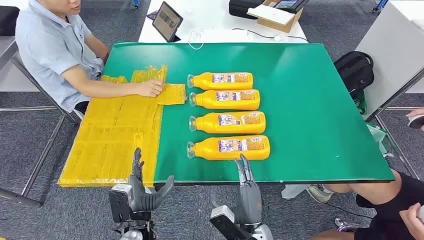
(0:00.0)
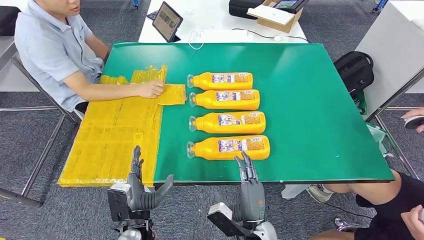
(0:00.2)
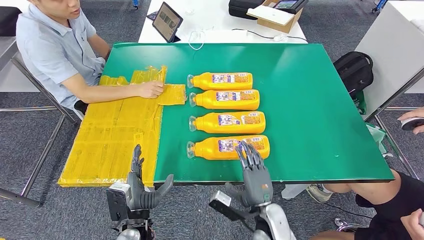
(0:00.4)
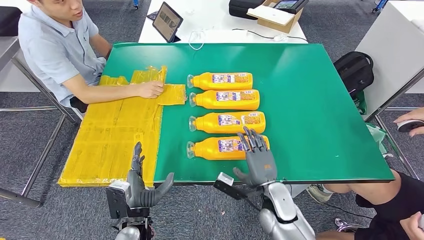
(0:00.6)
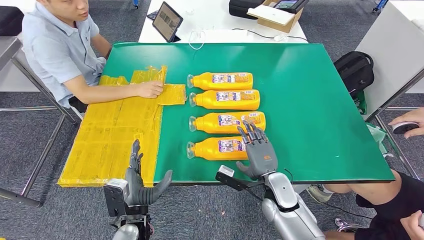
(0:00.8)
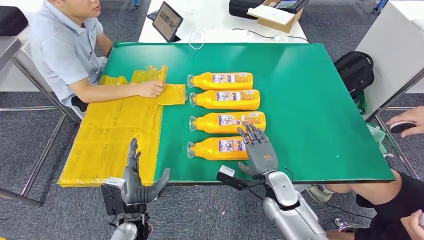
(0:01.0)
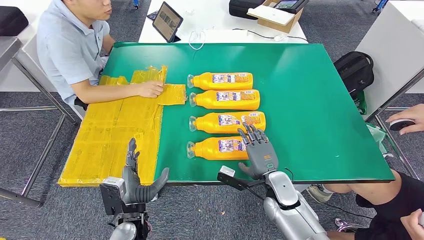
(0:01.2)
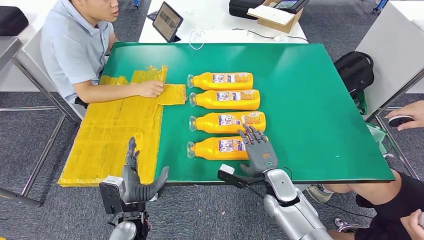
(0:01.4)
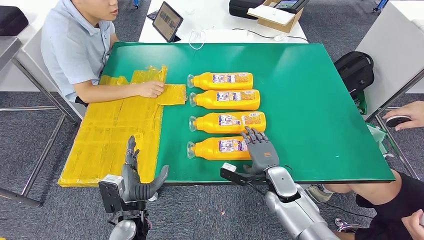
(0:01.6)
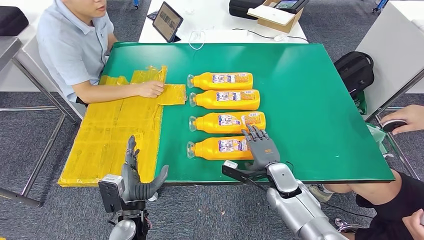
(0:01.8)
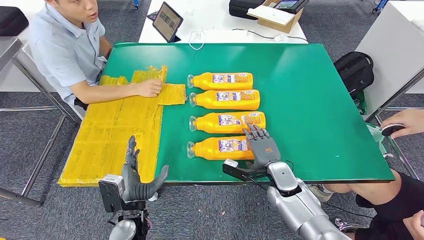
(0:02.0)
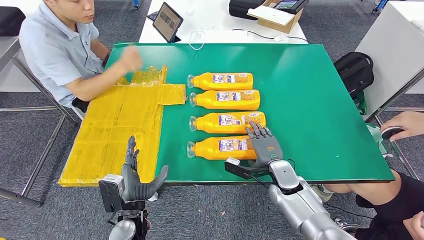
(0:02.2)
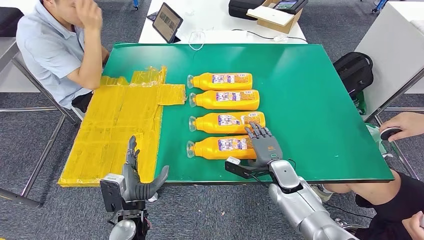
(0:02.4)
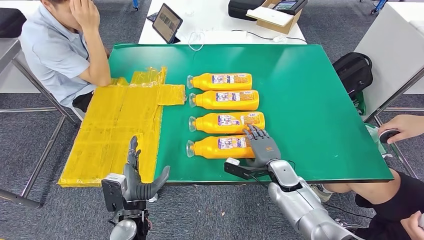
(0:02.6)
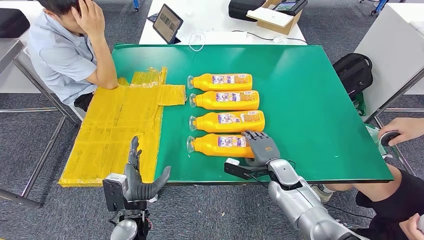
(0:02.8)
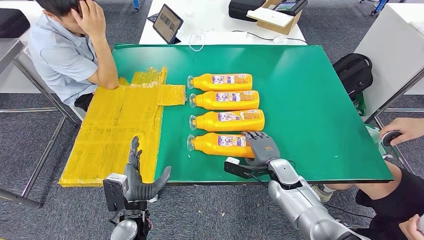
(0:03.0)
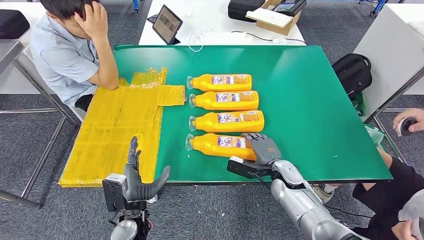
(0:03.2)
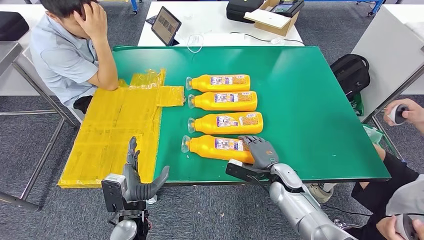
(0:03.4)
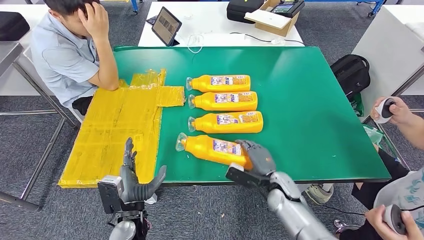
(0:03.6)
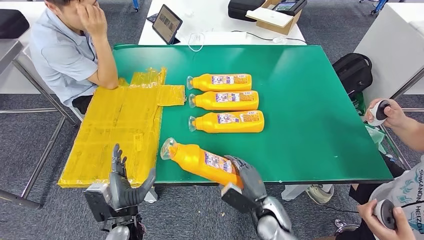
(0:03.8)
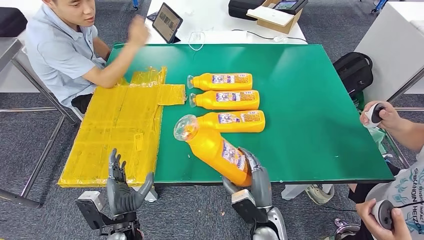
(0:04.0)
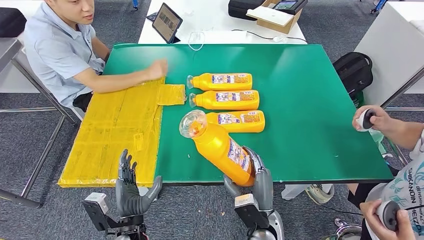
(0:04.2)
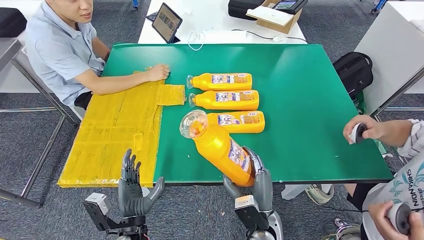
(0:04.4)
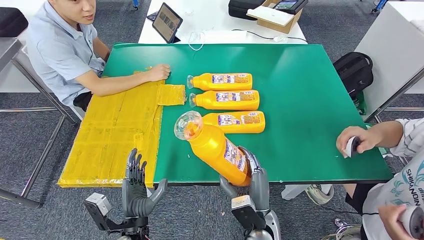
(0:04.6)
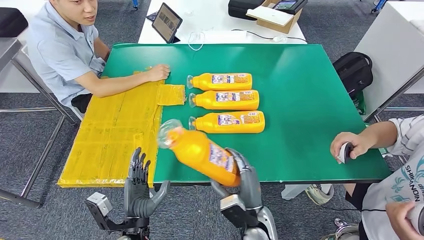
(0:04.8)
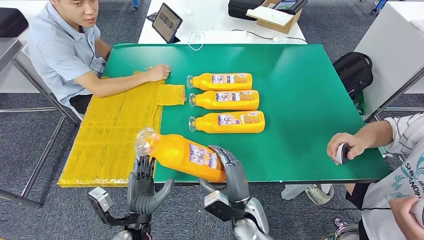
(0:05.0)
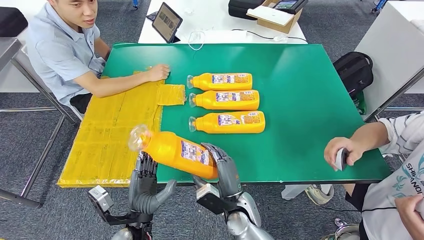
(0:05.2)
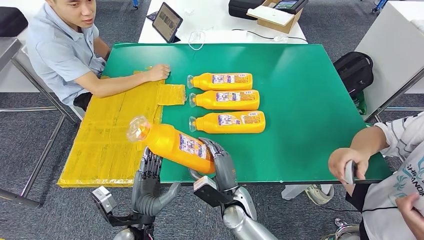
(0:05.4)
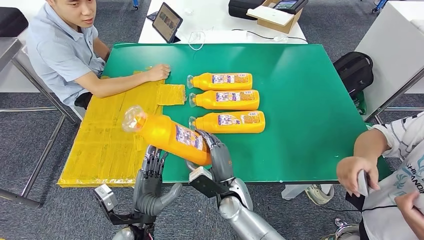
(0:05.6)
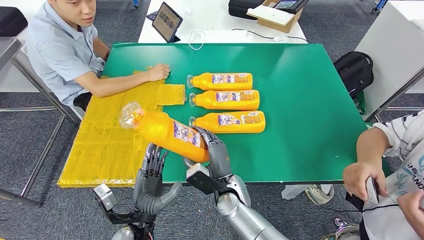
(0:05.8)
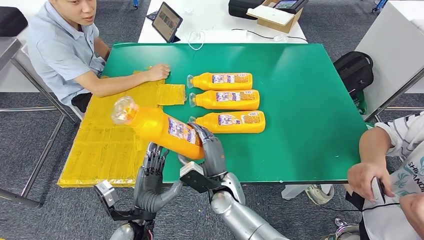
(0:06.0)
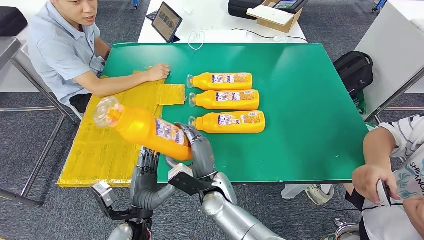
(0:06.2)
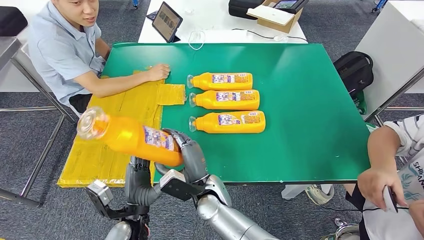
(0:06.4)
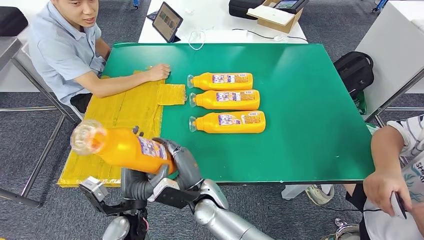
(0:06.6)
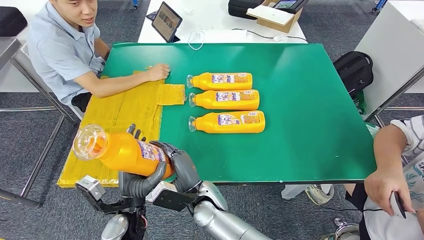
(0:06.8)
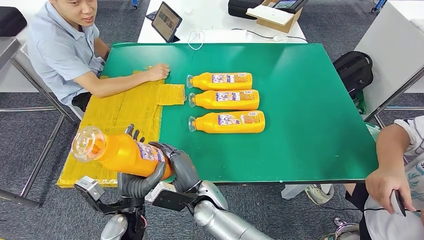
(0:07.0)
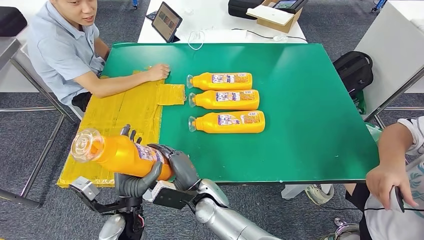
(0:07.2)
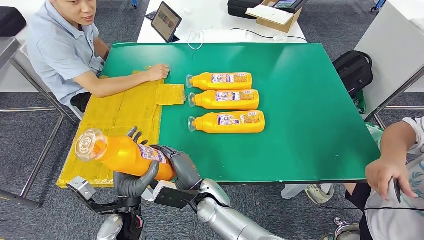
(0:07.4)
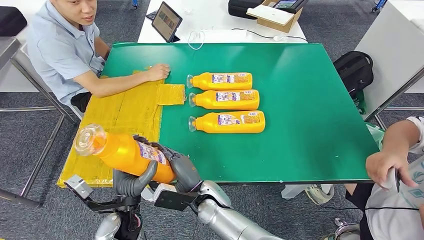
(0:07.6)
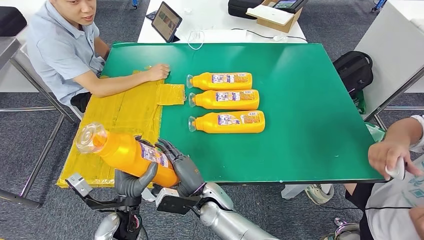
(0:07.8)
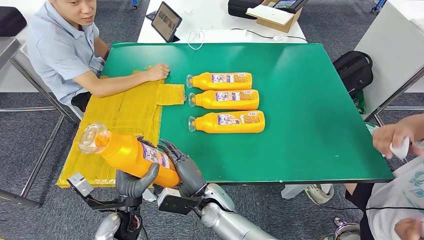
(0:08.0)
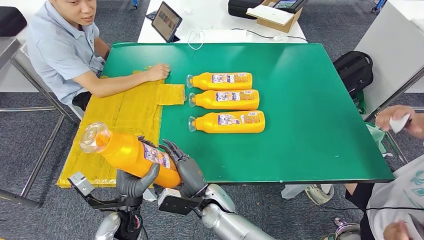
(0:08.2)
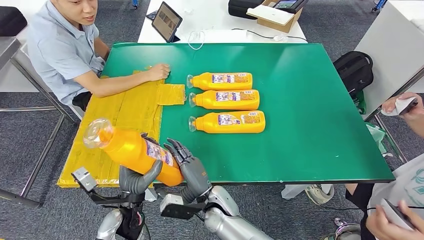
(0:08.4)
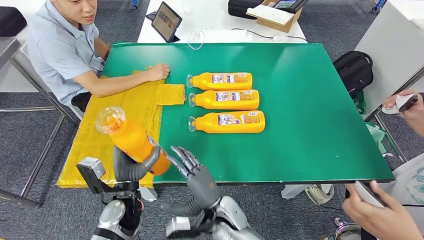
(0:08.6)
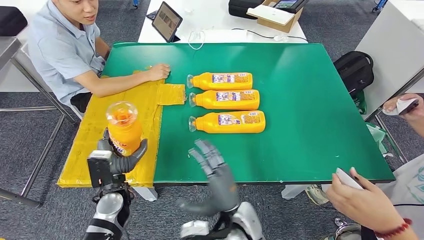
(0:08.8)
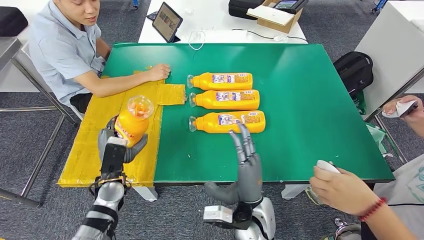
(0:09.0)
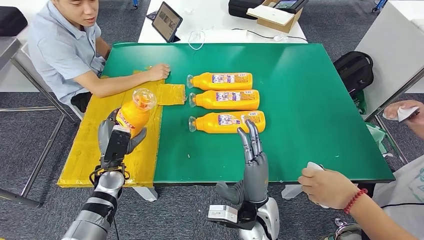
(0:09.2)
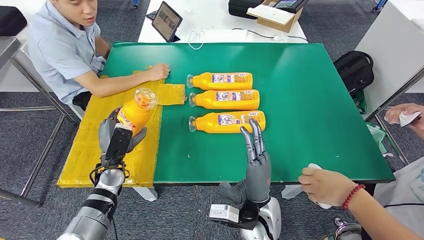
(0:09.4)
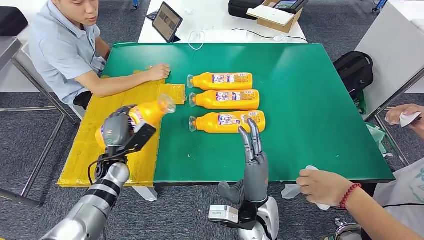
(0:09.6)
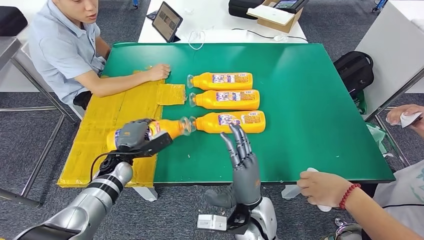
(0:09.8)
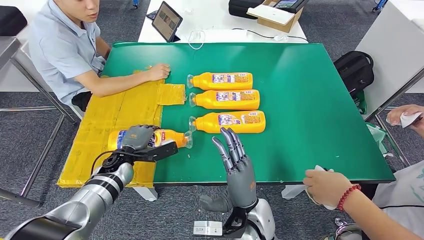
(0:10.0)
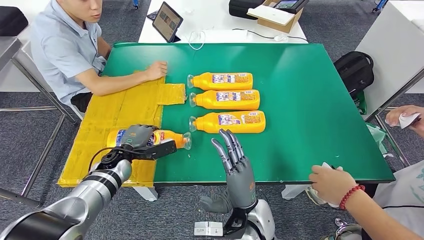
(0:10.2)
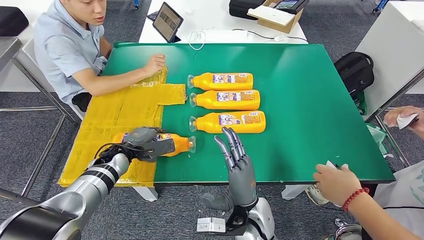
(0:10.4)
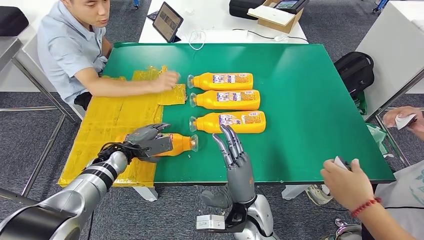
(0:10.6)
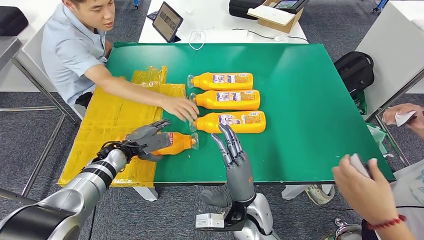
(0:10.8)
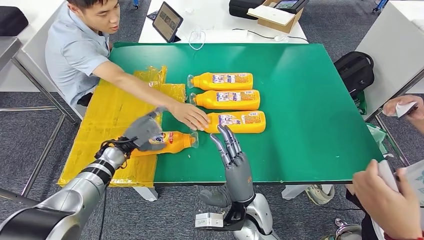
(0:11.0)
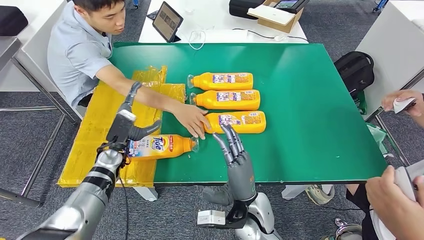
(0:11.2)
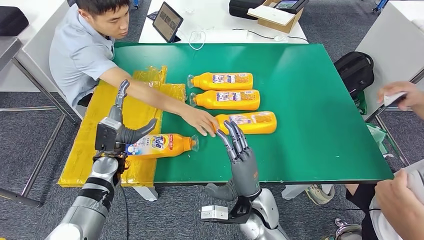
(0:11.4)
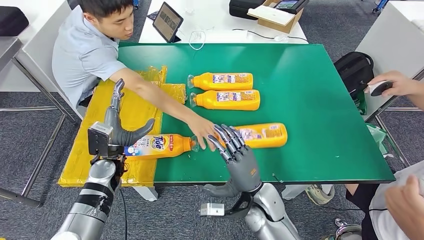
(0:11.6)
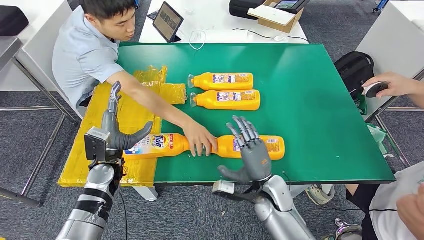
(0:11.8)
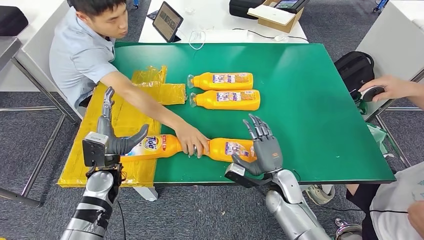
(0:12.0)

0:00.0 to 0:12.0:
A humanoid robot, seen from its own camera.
Step, 0:00.0 to 0:07.6: Take the fast-moving consumer goods bottle from the table.
Step, 0:07.8 to 0:11.4: Flip the fast-moving consumer goods bottle to the front side.
0:06.0 to 0:07.6: The right hand ends up some 5 cm from where it was.
0:09.0 to 0:10.4: The left hand heads forward, covering some 10 cm.

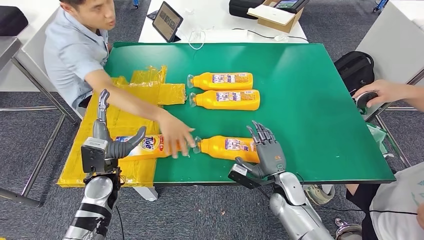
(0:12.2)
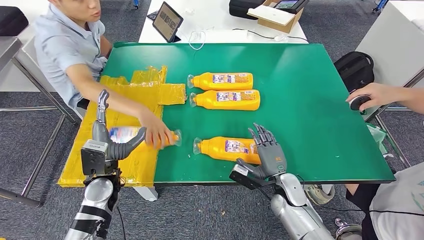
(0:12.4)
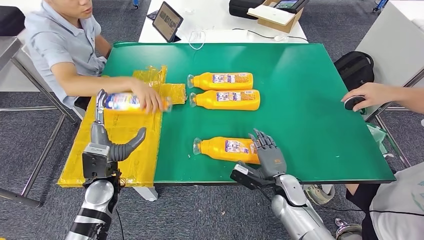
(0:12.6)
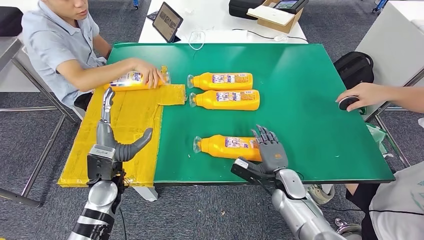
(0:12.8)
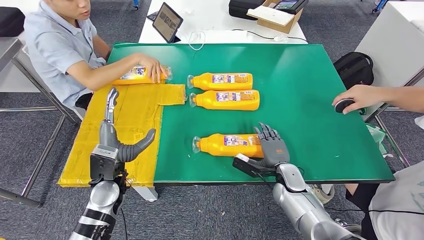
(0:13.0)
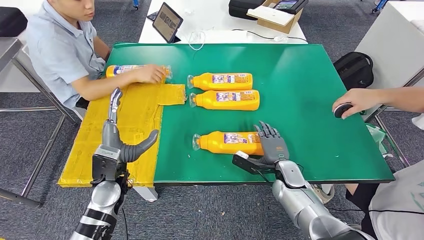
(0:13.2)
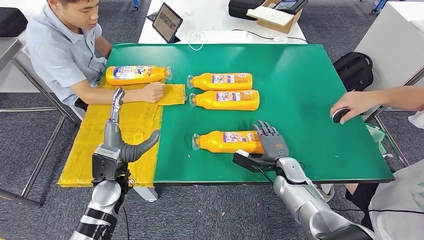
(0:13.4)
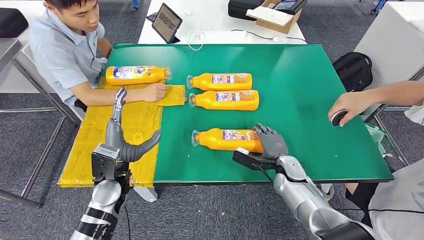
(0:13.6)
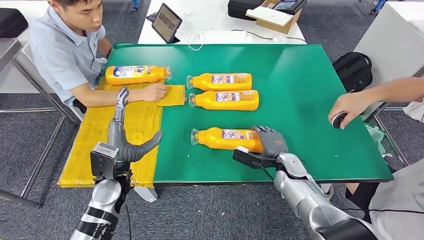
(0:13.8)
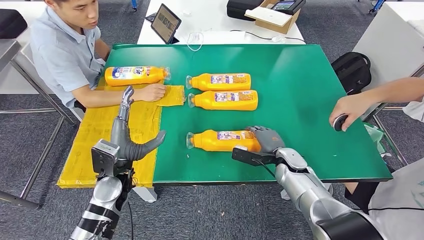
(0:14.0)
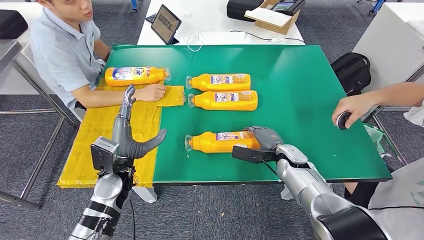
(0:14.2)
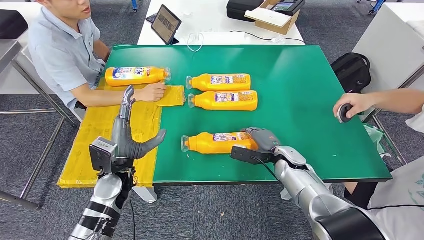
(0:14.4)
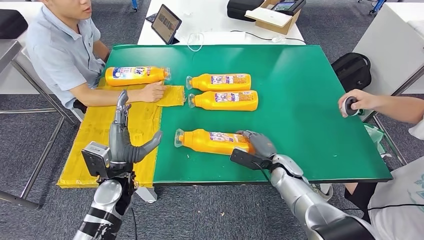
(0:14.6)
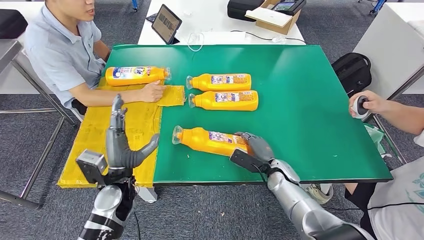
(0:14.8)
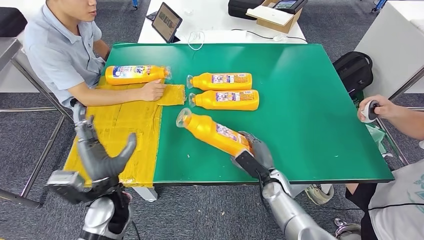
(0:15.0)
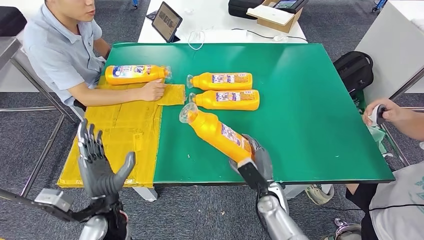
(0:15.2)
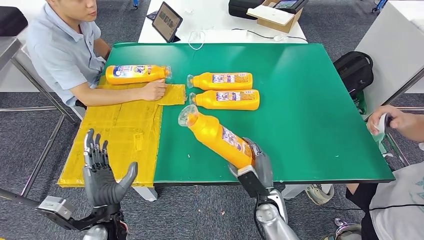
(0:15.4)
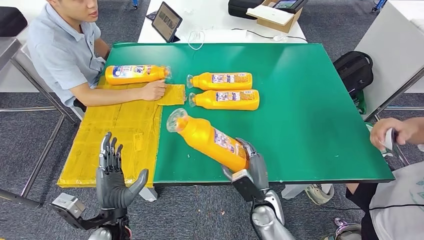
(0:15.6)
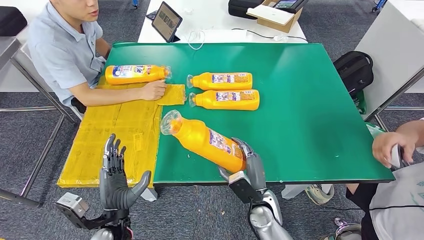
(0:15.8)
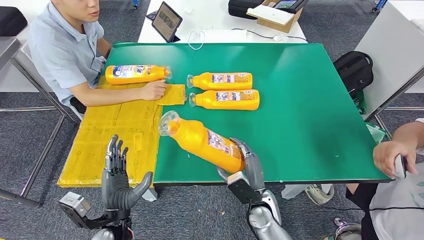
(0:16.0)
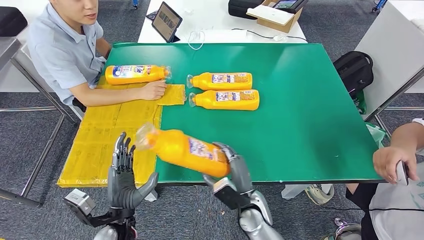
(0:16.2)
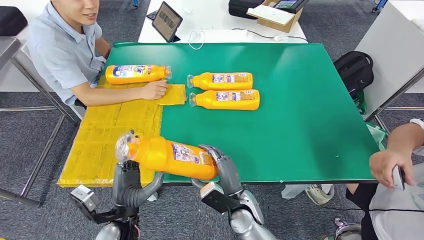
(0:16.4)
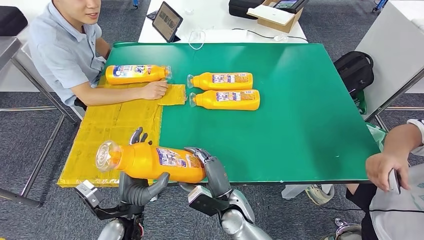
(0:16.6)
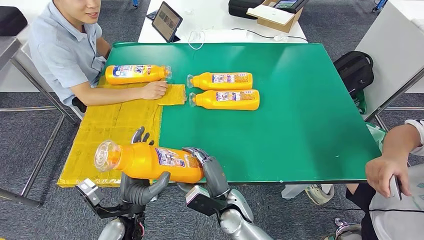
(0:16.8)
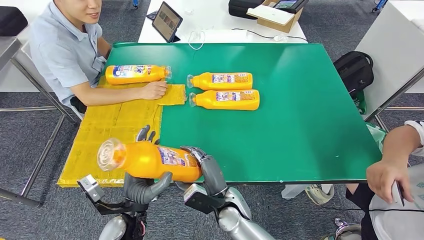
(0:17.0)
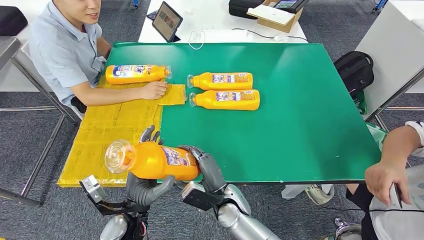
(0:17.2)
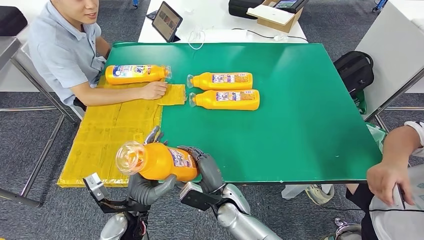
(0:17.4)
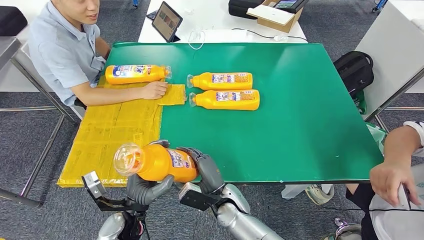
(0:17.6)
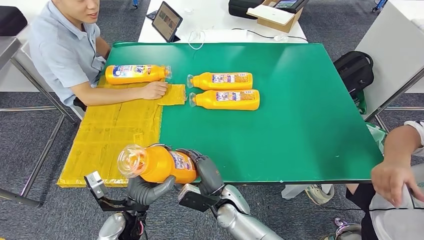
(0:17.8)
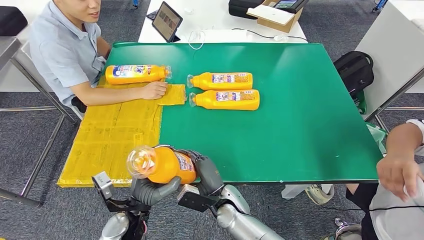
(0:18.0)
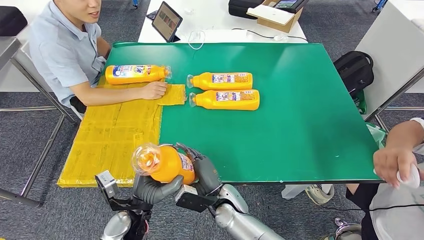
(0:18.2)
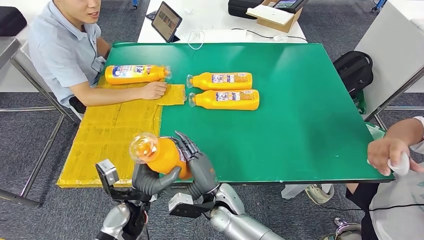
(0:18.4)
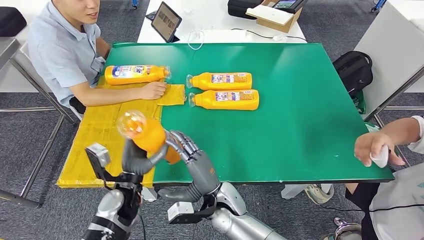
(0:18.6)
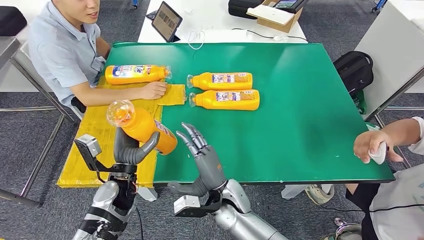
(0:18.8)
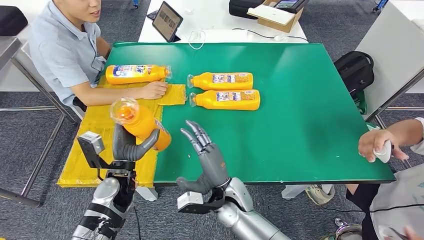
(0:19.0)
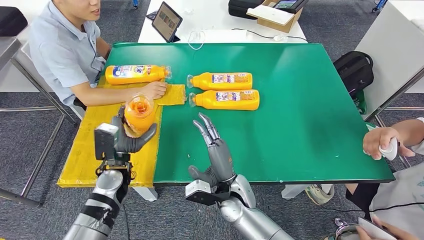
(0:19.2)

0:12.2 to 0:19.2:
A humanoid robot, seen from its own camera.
Step, 0:12.2 to 0:18.2: Pick up the fast-moving consumer goods bottle from the table.
0:17.8 to 0:19.2: The left hand moves forward and to the left, roughly 10 cm, while the right hand ends up roughly 5 cm from where it was.
